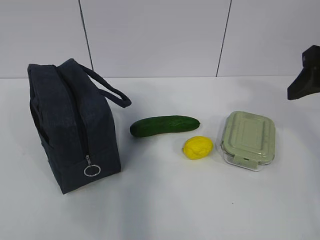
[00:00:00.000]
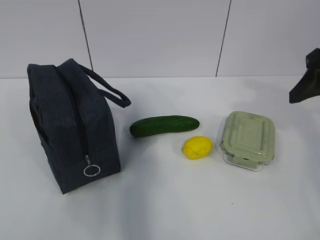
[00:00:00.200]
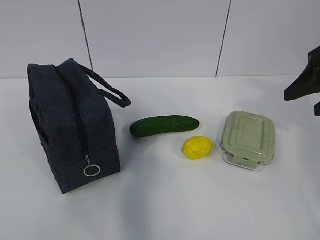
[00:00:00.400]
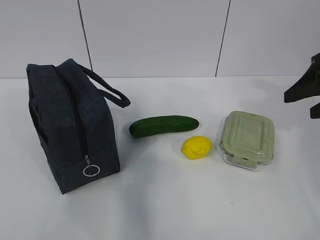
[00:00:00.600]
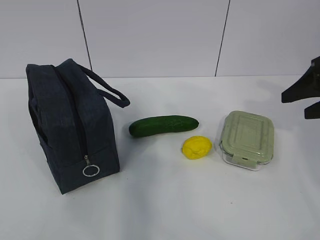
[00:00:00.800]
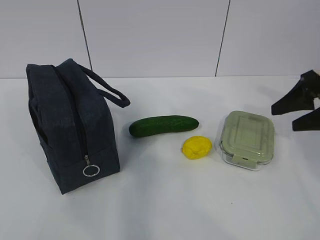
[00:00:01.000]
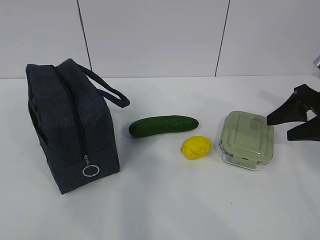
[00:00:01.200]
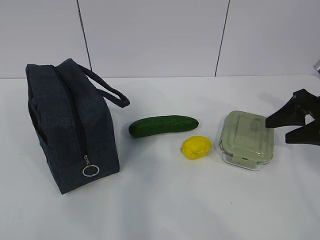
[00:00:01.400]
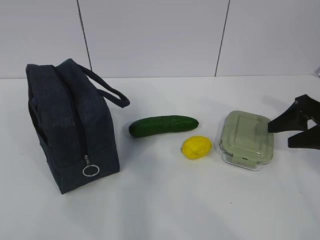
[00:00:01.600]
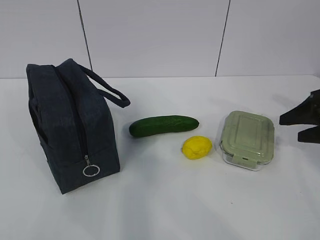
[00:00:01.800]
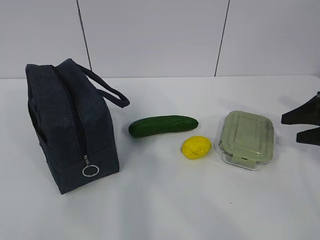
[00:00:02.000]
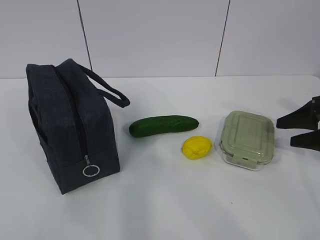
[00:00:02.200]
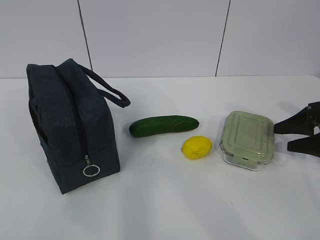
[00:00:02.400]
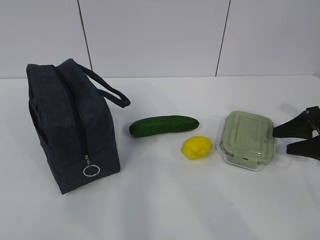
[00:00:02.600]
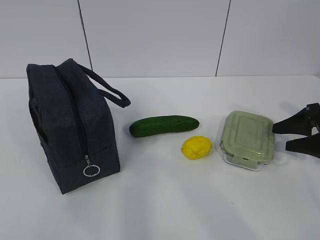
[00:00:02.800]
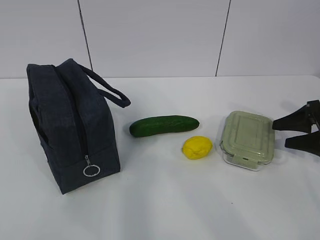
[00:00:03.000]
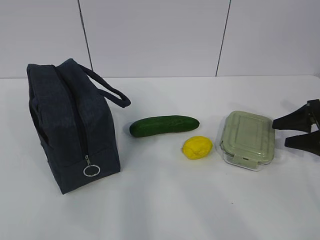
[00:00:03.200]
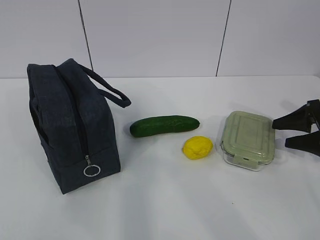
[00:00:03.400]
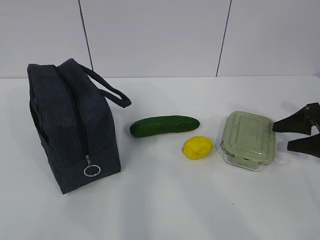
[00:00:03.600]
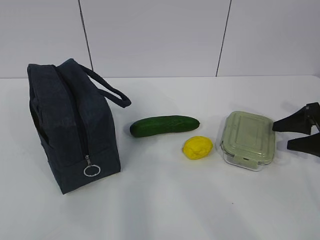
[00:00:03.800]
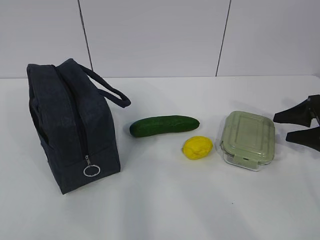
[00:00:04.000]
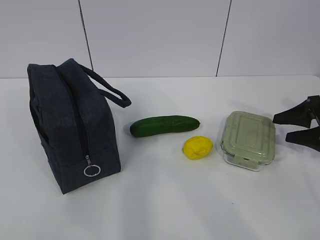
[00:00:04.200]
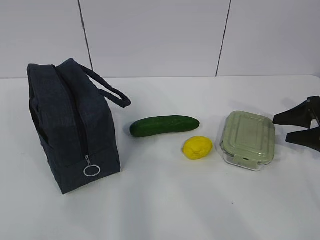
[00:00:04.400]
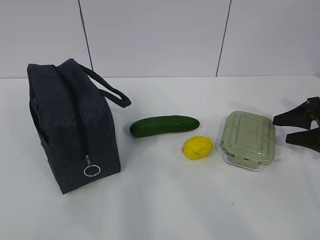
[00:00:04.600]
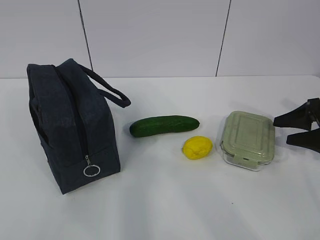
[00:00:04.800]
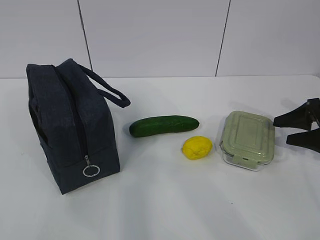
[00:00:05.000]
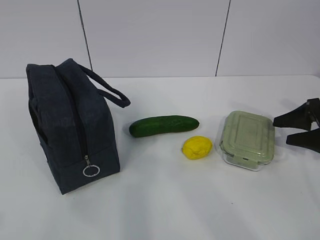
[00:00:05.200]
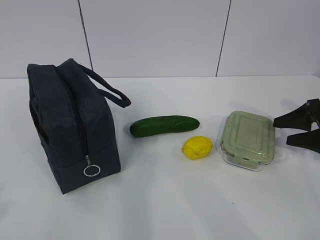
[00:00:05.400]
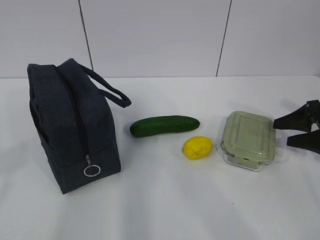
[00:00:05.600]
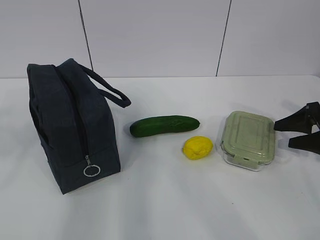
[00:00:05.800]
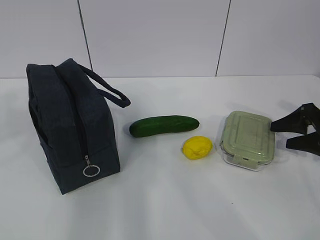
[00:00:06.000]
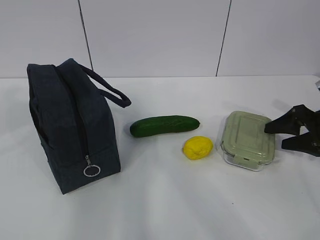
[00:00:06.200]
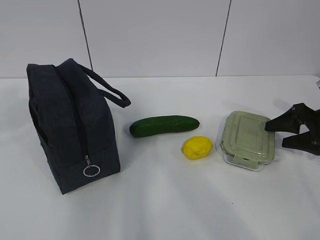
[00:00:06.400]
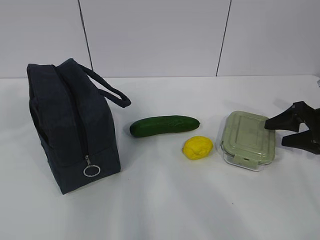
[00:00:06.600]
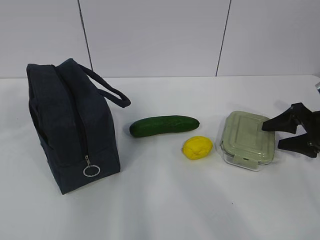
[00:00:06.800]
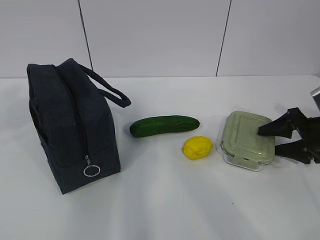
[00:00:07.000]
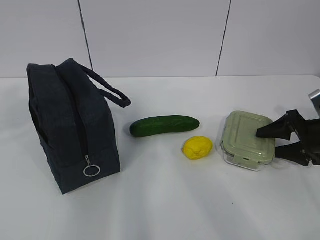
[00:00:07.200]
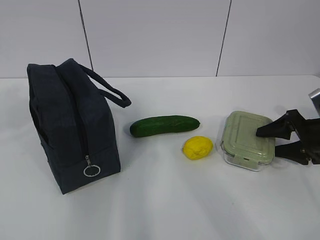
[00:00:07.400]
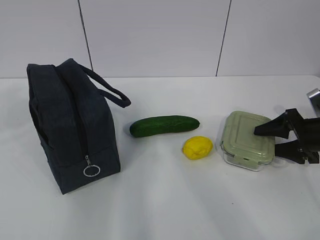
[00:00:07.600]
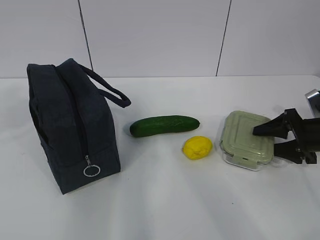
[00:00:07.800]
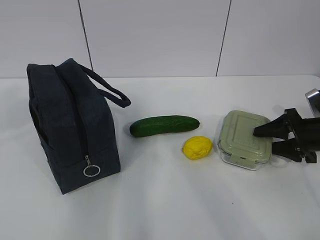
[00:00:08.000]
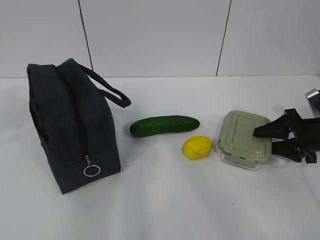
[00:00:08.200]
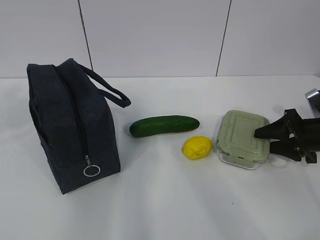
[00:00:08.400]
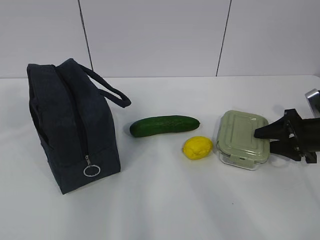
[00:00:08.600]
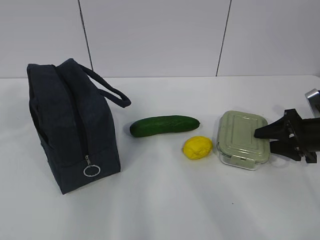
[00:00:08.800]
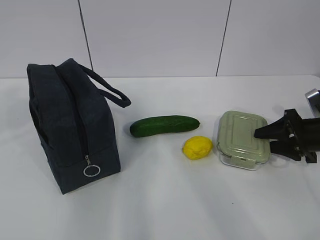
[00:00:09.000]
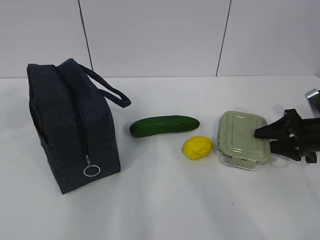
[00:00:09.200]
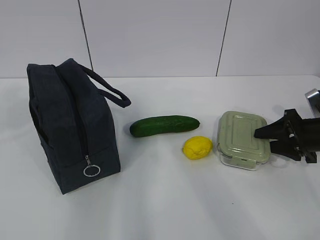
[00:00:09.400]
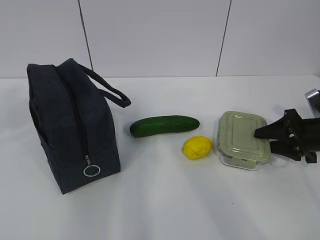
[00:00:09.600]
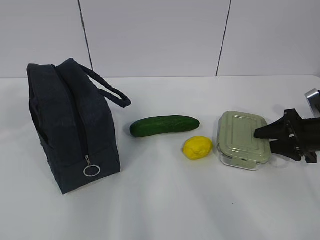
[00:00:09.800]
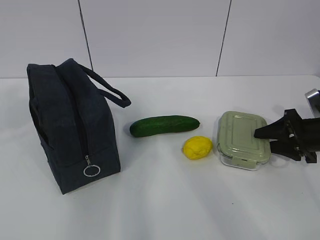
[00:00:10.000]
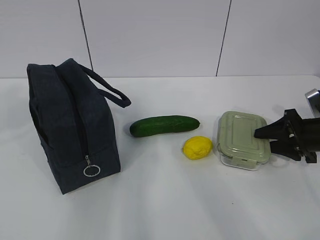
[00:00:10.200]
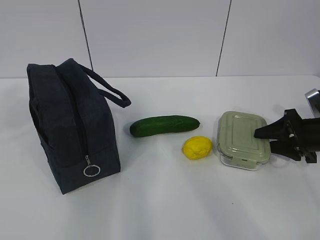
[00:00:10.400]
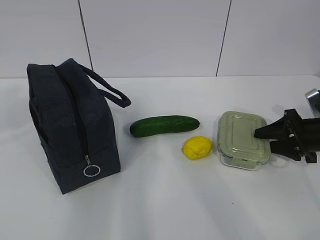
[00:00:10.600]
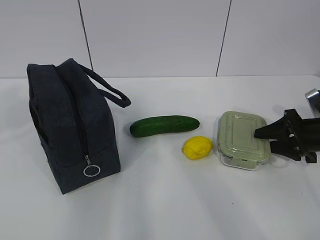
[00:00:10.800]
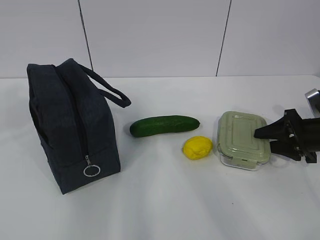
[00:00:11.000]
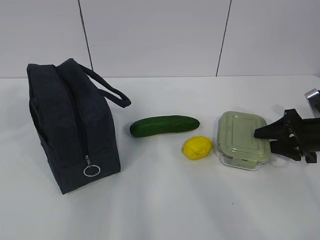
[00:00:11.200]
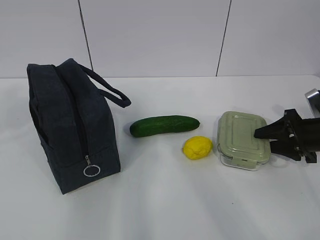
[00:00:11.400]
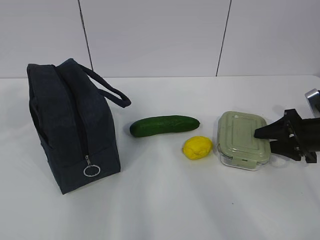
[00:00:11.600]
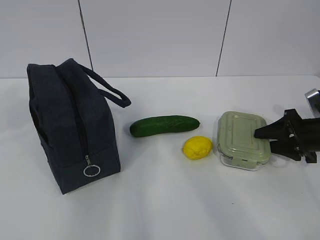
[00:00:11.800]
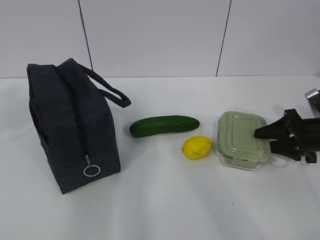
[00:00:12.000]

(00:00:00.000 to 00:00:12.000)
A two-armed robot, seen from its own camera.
Step, 00:00:00.000 - 00:00:09.000: Grasp the box with the right gripper.
00:00:00.000 - 00:00:01.600: The right gripper shifts about 15 cm downward, to the right and forward.
00:00:01.600 - 00:00:03.000: The right gripper changes place by some 5 cm.
00:00:03.000 - 00:00:04.400: The two grippers keep their place.
00:00:07.600 - 00:00:12.000: The two grippers keep their place.

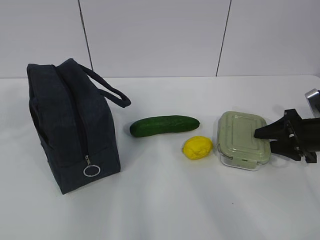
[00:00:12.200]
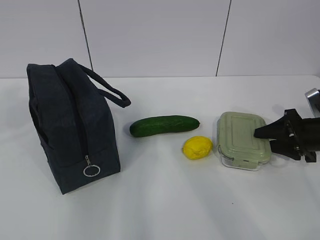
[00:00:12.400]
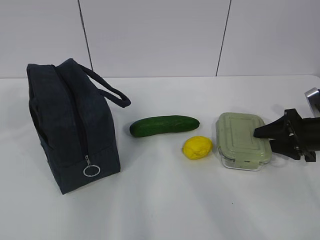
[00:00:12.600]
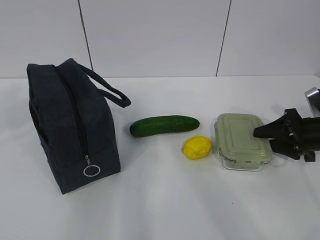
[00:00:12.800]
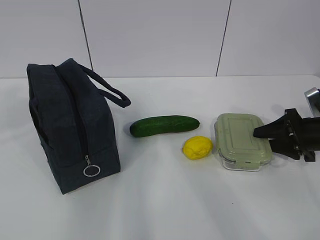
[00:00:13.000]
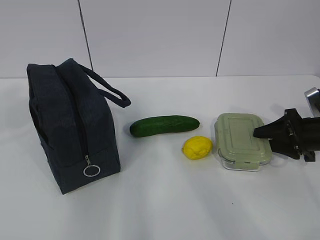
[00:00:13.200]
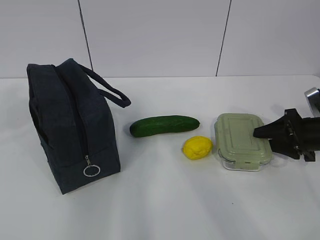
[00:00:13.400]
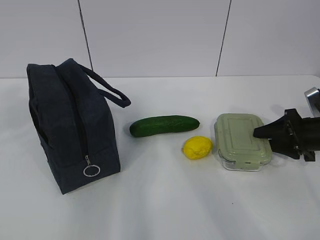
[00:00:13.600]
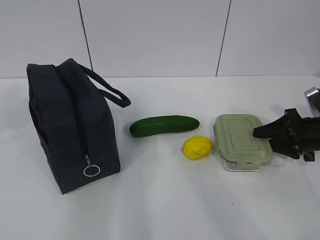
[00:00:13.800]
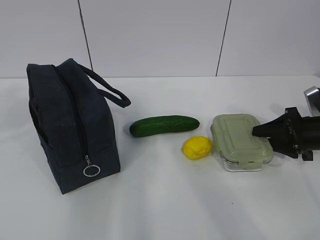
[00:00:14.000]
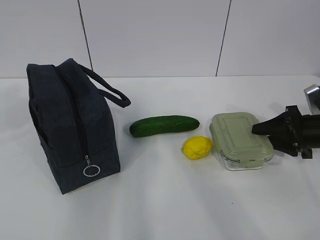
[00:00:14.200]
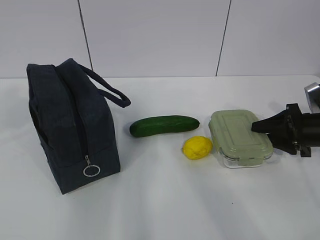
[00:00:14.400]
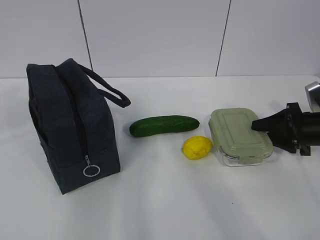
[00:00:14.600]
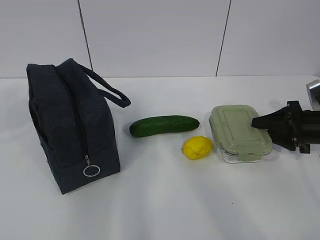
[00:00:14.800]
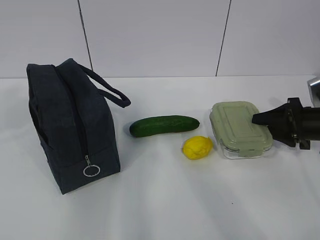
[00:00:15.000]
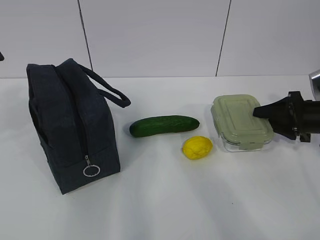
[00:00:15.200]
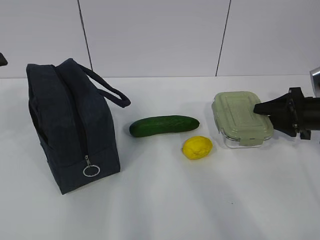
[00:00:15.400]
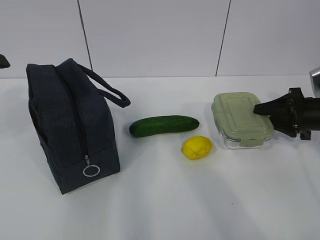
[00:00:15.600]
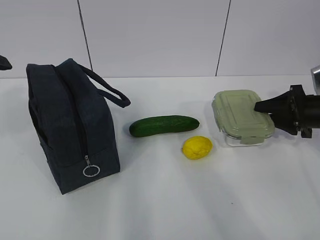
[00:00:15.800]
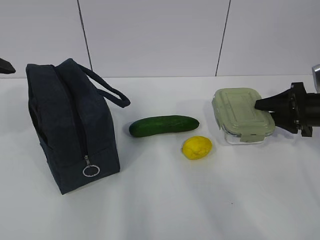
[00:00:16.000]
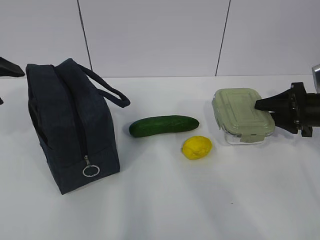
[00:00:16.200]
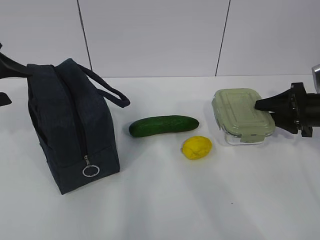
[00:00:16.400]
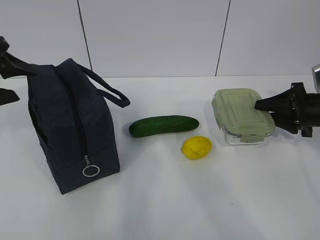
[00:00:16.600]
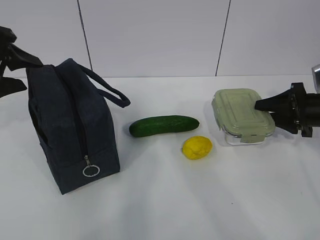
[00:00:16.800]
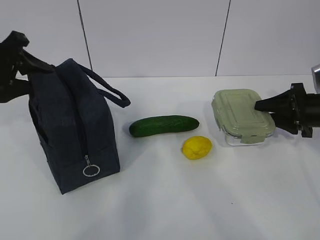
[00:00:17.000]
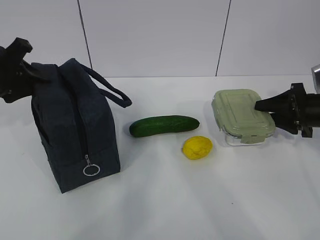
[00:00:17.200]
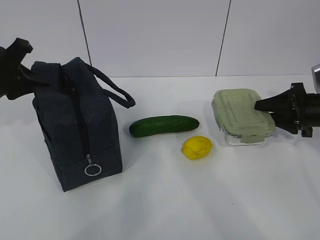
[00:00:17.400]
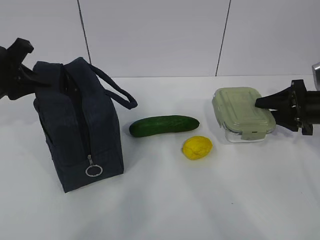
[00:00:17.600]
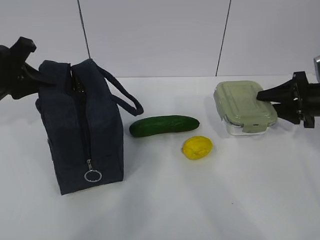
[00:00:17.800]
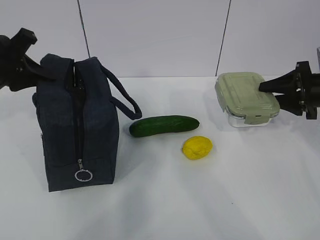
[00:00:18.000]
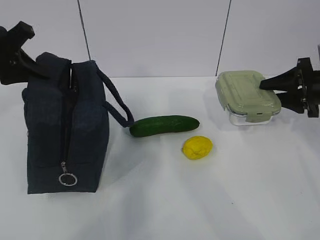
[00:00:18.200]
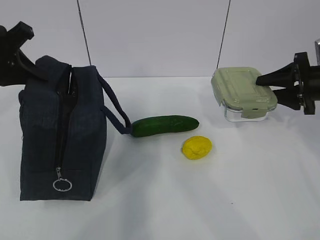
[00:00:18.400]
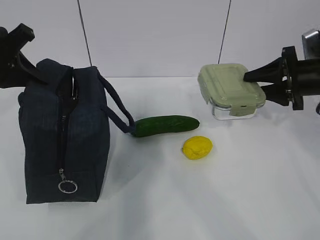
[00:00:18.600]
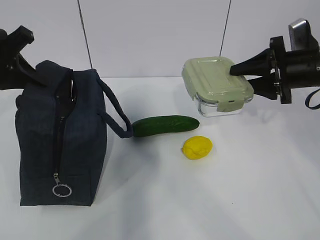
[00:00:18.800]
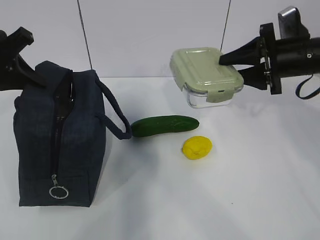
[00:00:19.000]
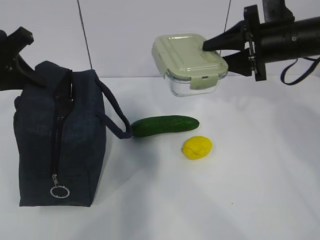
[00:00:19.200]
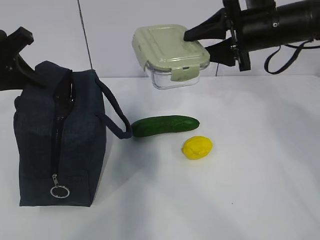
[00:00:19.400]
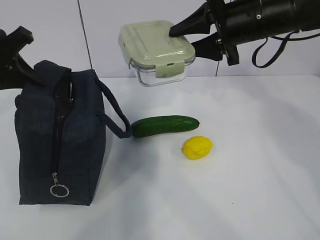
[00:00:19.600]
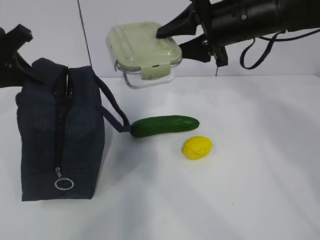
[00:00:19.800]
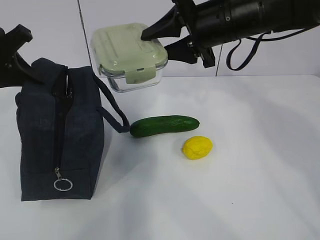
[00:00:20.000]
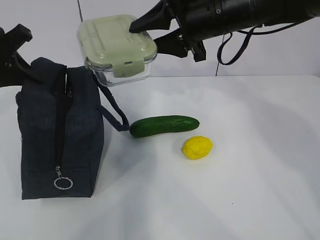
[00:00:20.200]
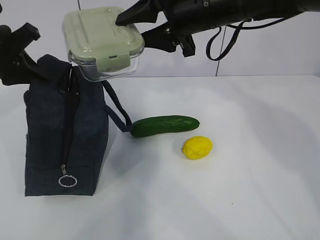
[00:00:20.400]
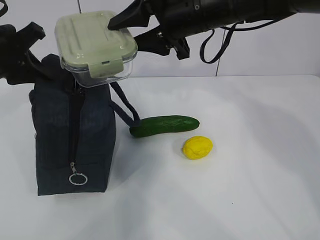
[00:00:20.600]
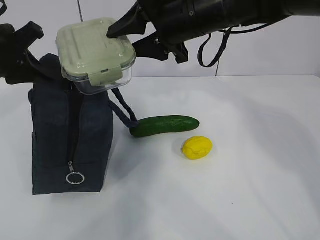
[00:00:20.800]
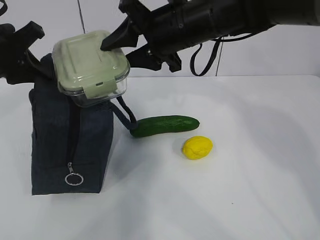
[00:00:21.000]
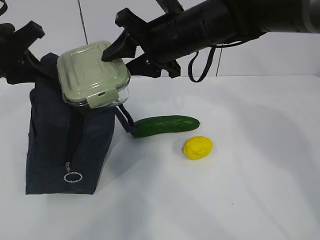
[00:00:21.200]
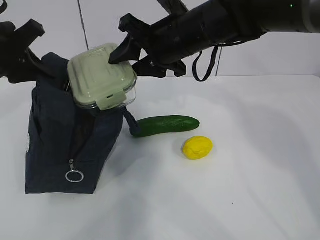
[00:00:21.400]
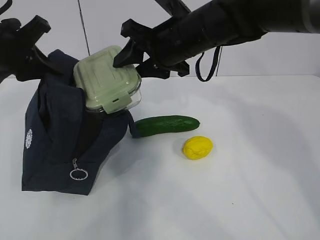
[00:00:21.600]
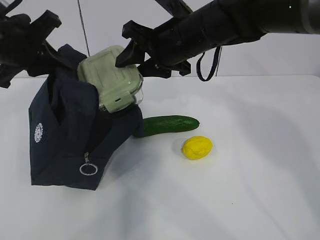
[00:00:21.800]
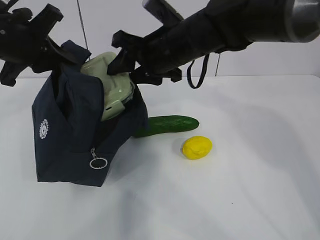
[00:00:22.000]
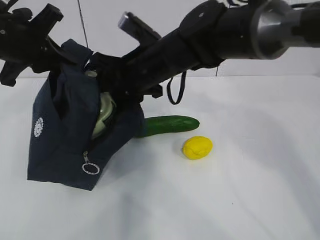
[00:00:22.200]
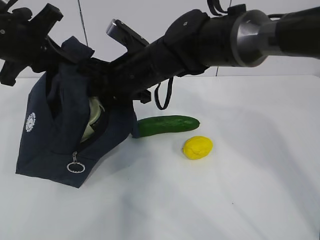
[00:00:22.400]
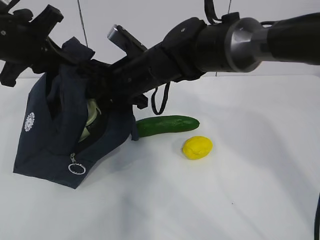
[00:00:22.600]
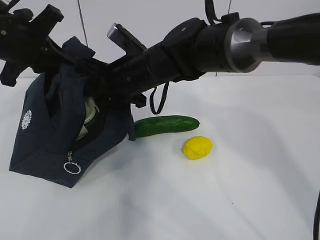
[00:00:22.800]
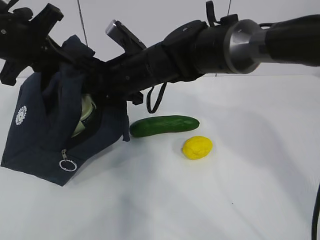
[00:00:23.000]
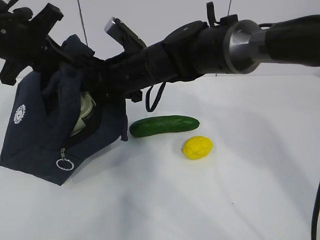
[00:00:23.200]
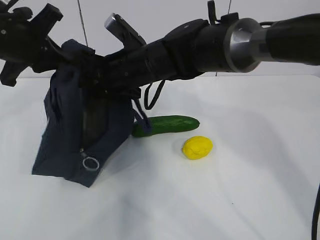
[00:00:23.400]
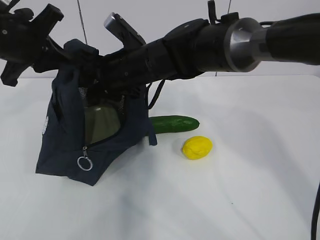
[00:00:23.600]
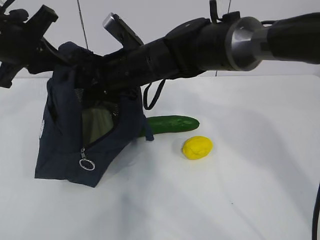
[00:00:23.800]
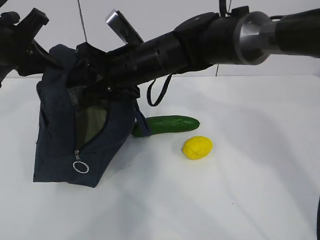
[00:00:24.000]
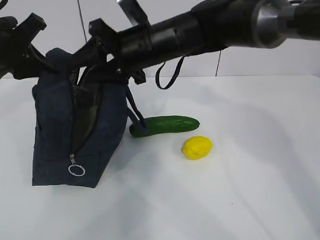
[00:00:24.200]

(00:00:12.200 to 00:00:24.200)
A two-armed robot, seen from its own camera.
Step, 00:00:12.200 - 00:00:17.600: Grasp the package with the left gripper.
Step, 00:00:18.000 - 00:00:24.000: Place the box into the package with the right gripper.
00:00:12.200 - 00:00:13.800: Both grippers stay about where they are.
00:00:13.800 - 00:00:15.200: The grippers make only small movements.
00:00:15.200 - 00:00:16.600: The left gripper is displaced forward and downward by roughly 10 cm.
00:00:16.600 - 00:00:18.200: The left gripper moves forward, some 5 cm, and closes up.
00:00:18.200 - 00:00:19.800: The right gripper travels to the left and upward by some 25 cm.
00:00:19.800 - 00:00:21.200: The right gripper travels to the left by roughly 10 cm.
00:00:21.200 - 00:00:22.600: The right gripper moves to the left and downward, approximately 10 cm.
